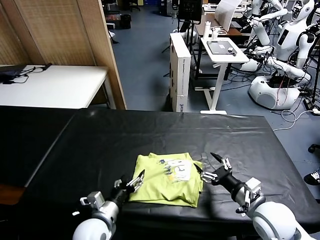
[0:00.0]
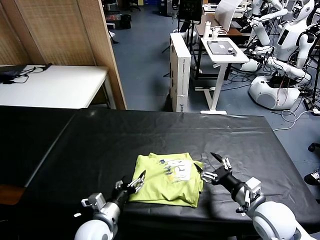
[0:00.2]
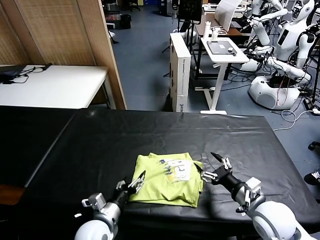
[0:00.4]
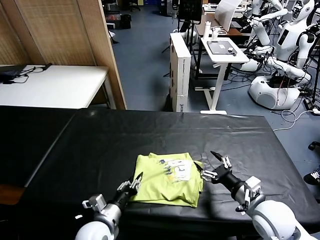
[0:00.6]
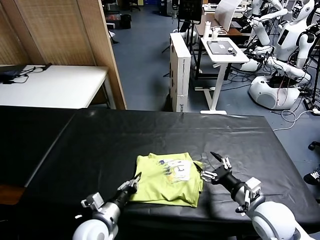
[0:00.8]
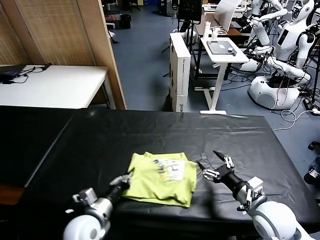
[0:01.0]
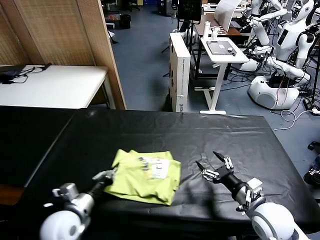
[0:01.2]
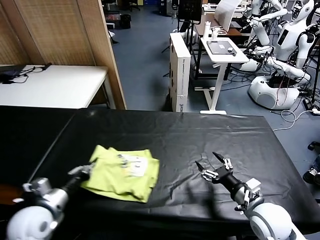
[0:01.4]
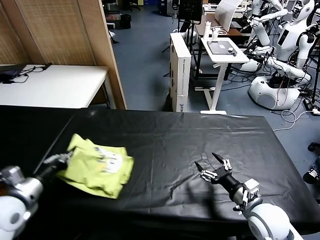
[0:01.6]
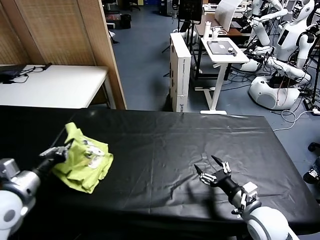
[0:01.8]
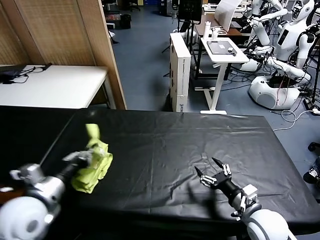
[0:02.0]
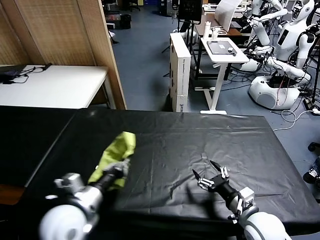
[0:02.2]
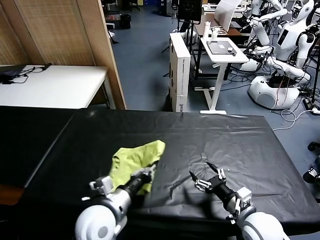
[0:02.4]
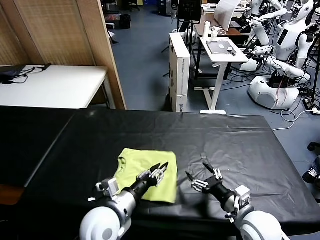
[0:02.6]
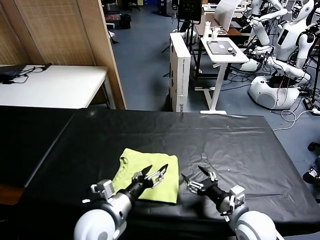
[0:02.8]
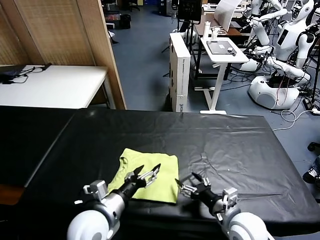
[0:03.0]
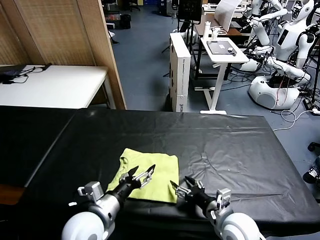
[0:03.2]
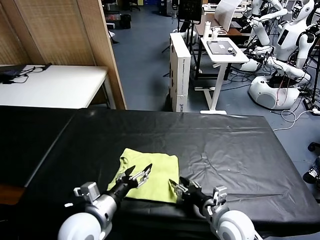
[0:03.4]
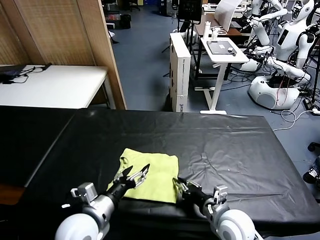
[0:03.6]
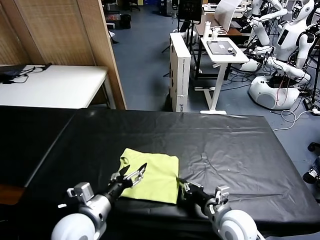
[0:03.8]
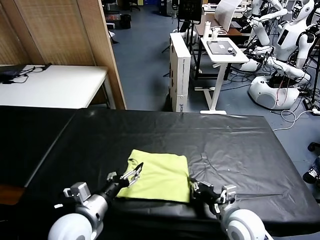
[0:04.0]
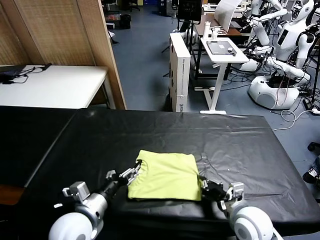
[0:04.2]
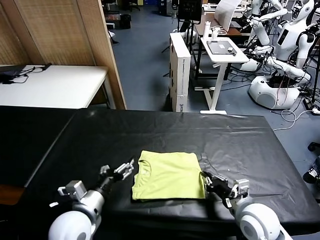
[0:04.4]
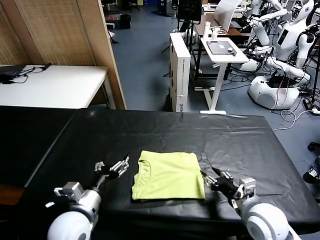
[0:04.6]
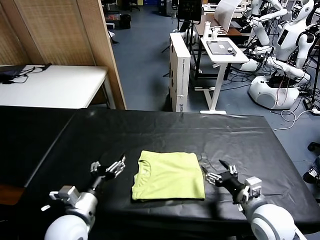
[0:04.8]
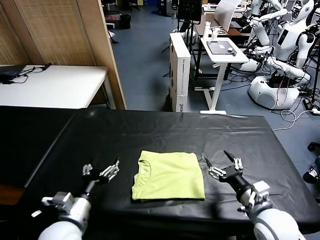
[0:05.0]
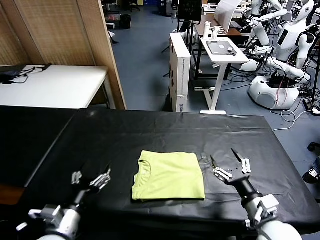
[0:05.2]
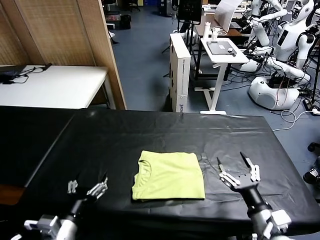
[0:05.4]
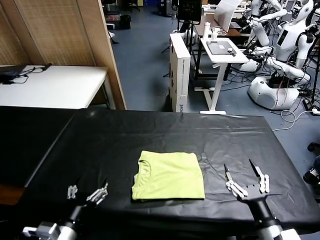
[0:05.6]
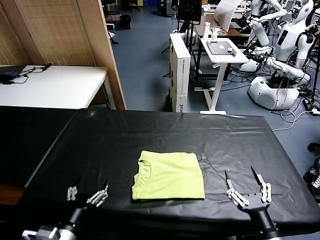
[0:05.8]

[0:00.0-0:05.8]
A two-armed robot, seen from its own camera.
Task of the whole recording: fold and organize the clothes.
Step, 0:00.0 to 0:02.8: Flip the folded clothes over with left gripper.
Step, 0:03.0 to 0:04.6: Drag the clothes to the center of the table.
0:00.0 to 0:01.4: The left gripper shifts roughly 25 cm to the left and upward, and closes its fingers.
0:01.4 to 0:02.8: The left gripper goes about 20 cm to the right, and opens. The right gripper heads to the left, covering roughly 5 cm.
0:02.8 to 0:04.4: The left gripper travels to the left by about 5 cm. The right gripper moves some 5 cm, and closes.
0:04.4 to 0:05.8: Both grippers move backward, some 10 cm. The right gripper opens up.
